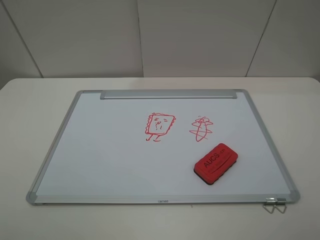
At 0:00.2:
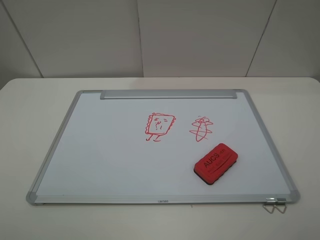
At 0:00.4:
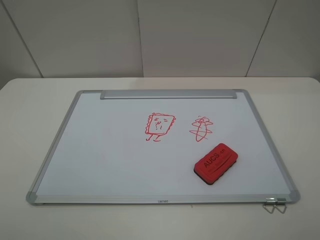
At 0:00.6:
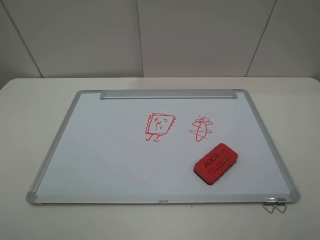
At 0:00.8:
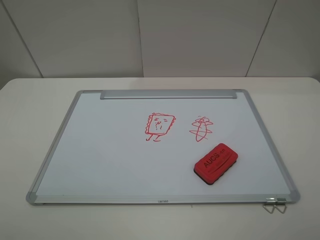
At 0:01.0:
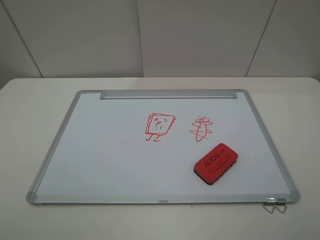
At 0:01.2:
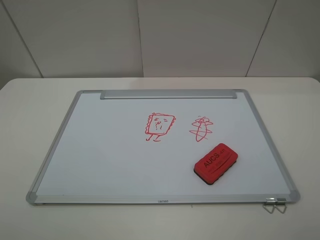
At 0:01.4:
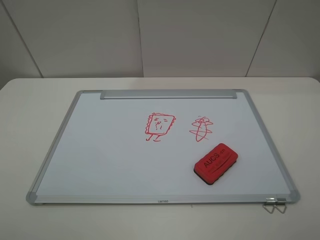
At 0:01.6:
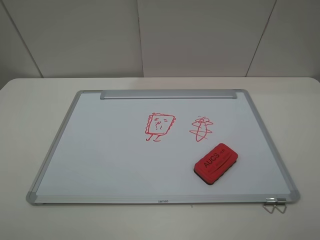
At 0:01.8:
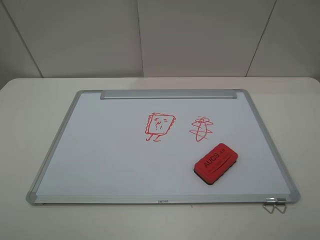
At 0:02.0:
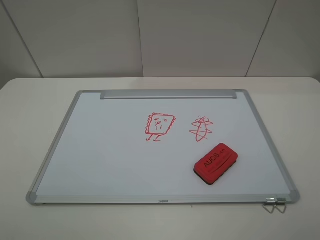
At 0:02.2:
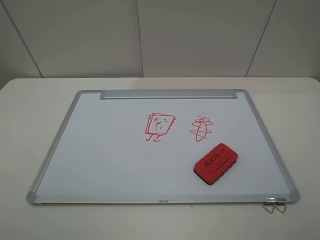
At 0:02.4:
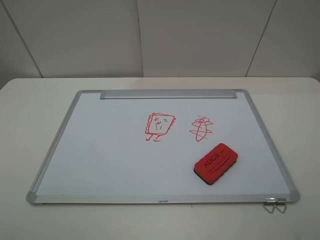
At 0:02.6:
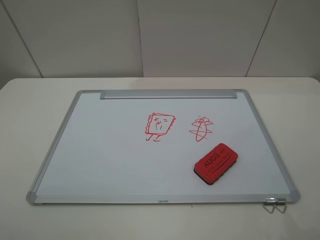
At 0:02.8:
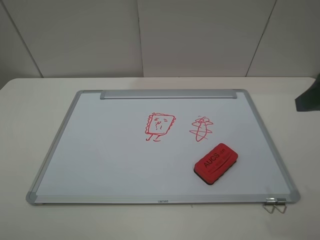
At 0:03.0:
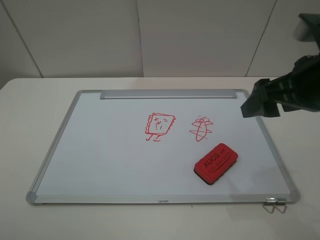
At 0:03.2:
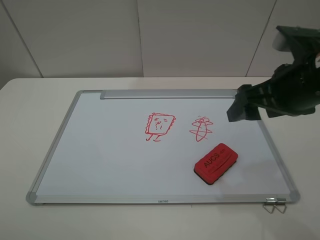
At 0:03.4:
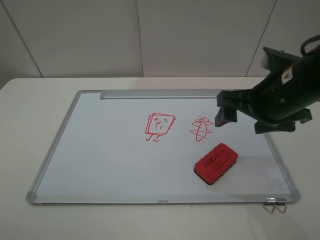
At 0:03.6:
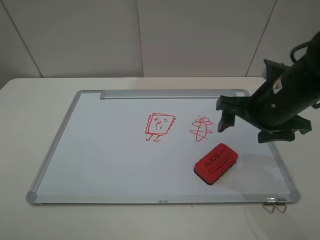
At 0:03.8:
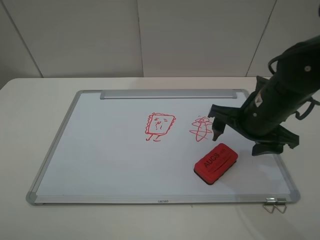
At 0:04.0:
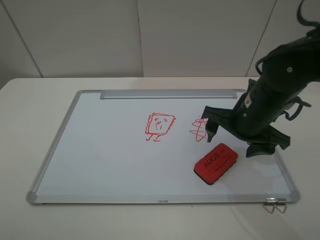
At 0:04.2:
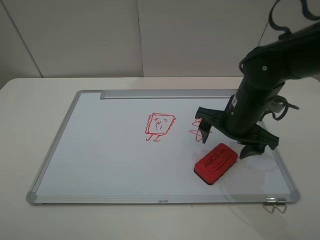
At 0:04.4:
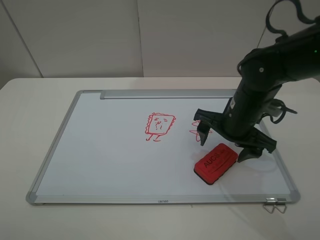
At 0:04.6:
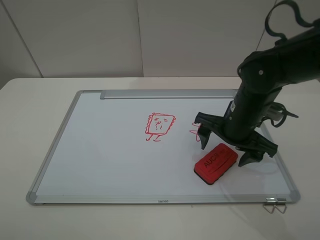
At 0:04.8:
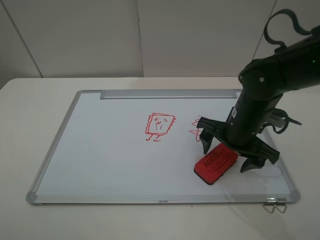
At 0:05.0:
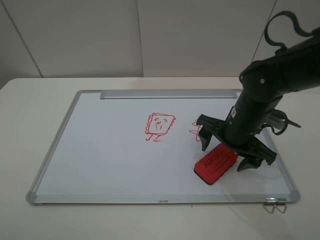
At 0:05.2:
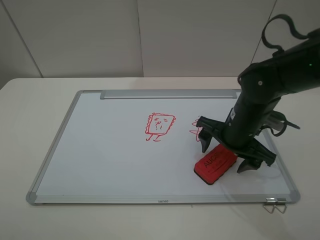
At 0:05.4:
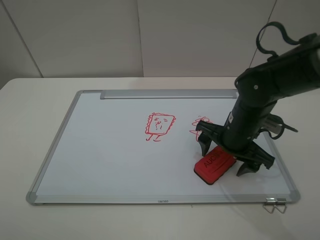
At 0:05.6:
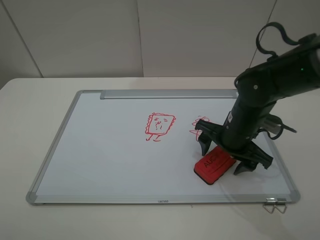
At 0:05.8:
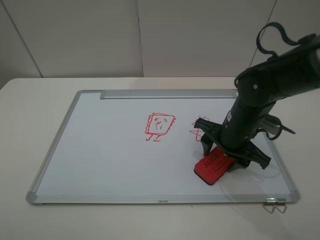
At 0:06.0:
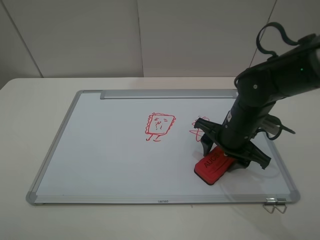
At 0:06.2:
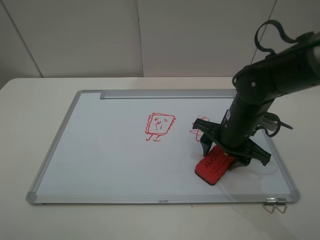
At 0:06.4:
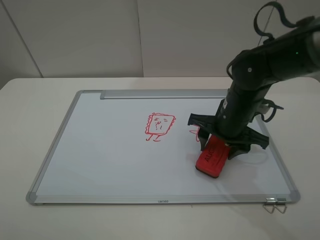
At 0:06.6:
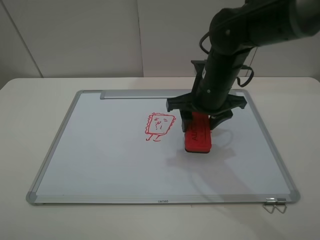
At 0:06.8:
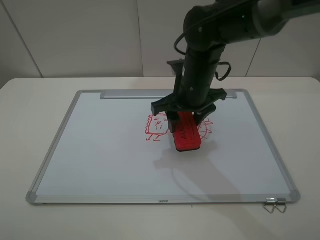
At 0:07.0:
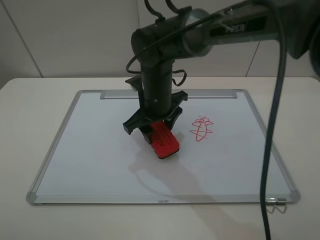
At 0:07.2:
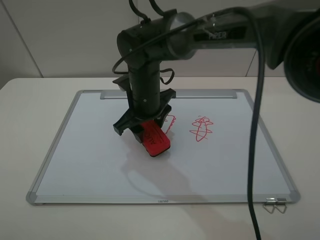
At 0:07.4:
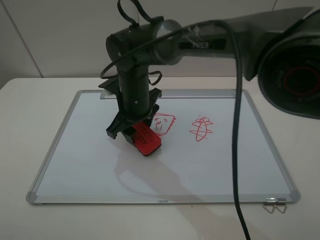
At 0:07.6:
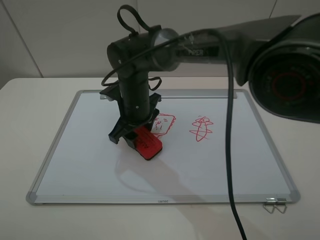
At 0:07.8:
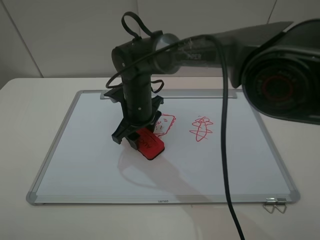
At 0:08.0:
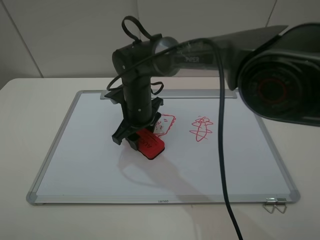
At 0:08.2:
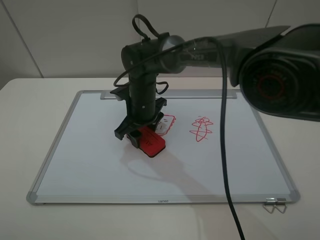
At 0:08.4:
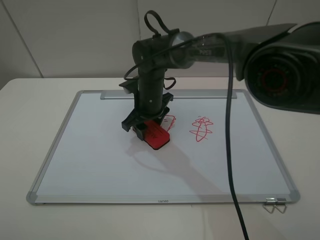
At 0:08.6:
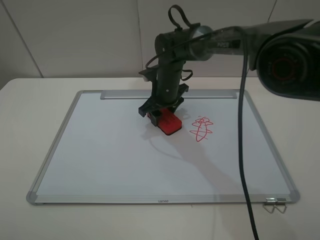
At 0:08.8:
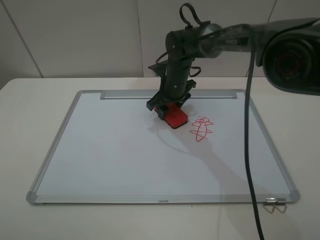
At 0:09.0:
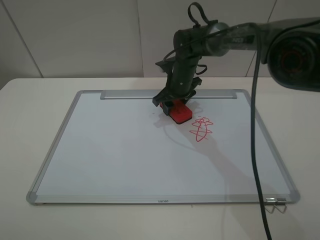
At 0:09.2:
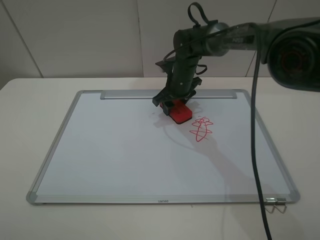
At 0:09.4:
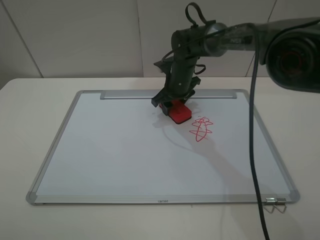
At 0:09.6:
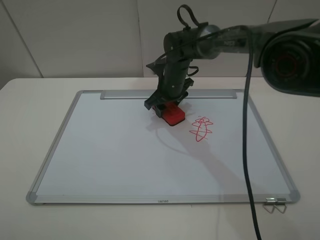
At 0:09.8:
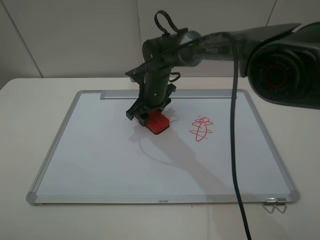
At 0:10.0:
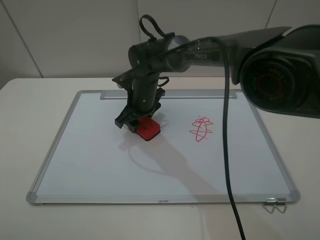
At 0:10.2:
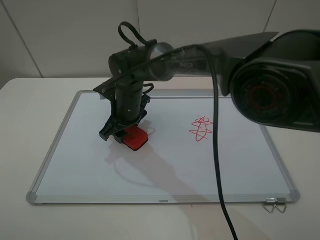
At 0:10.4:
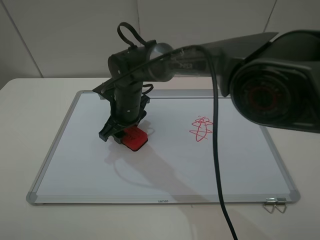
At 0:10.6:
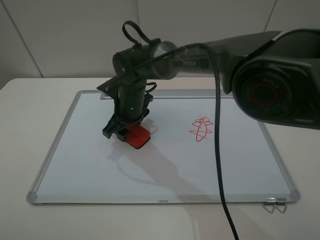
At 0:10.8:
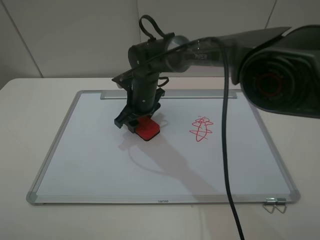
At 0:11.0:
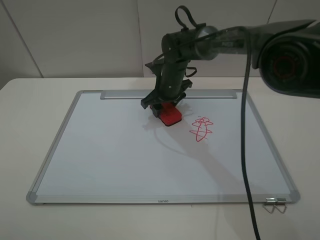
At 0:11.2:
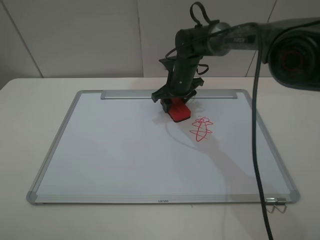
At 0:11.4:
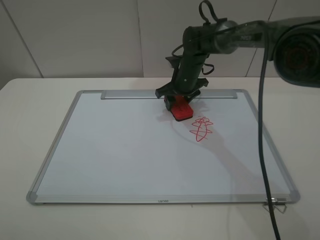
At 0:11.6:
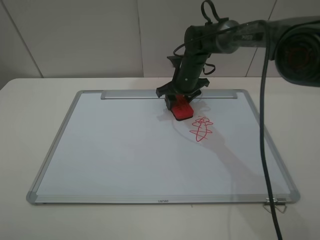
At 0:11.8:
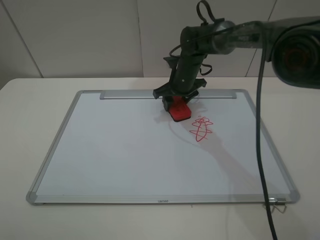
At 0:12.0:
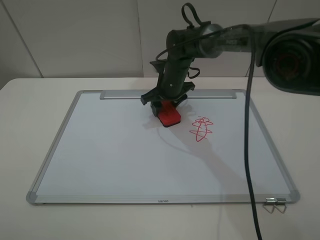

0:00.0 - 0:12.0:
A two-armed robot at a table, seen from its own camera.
Step, 0:00.0 - 0:05.8: Grasp the eraser with the right gripper.
0:00.0 - 0:01.6: Both grippers stay put.
0:01.6 - 0:03.0: The right gripper is displaced forward by about 20 cm.
0:03.0 - 0:04.4: The right gripper is displaced downward, forward and to the left by roughly 15 cm.
0:04.4 - 0:06.0: The right gripper closes.
0:06.0 - 0:07.6: The right gripper goes approximately 20 cm to the left.
0:07.6 - 0:09.0: The right gripper goes some 15 cm to the right and forward.
0:09.0 - 0:10.4: The right gripper heads to the left and backward, covering some 15 cm.
0:10.4 - 0:12.0: The right gripper is displaced to the right and forward by roughly 10 cm.

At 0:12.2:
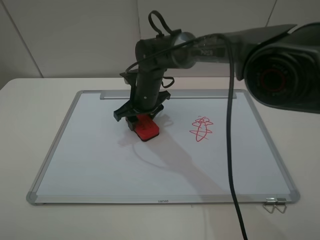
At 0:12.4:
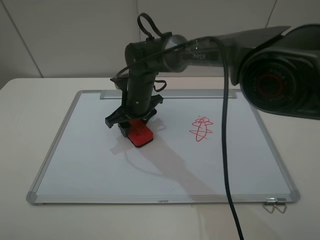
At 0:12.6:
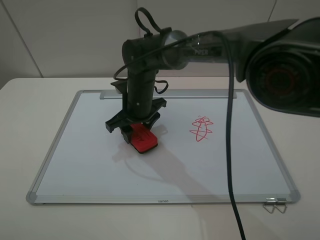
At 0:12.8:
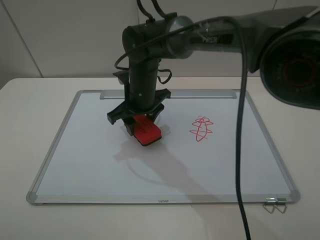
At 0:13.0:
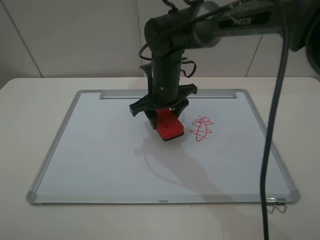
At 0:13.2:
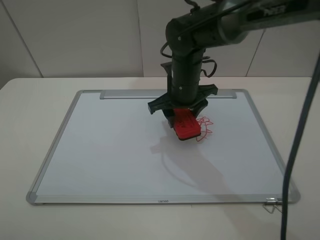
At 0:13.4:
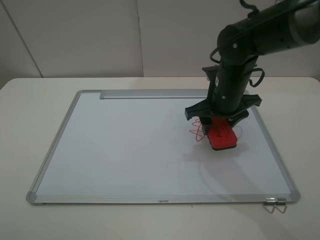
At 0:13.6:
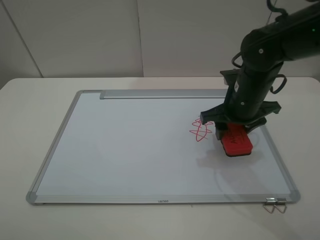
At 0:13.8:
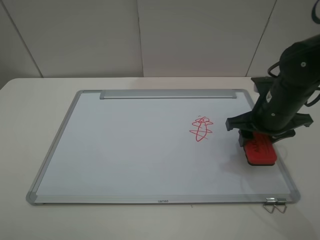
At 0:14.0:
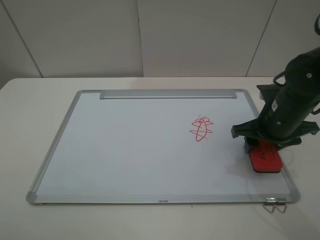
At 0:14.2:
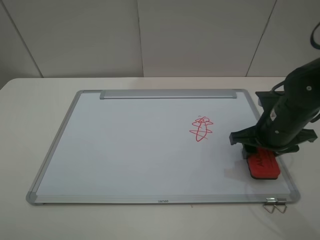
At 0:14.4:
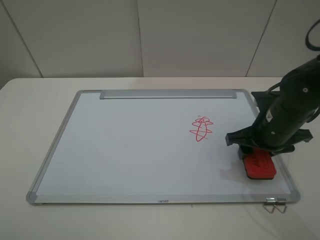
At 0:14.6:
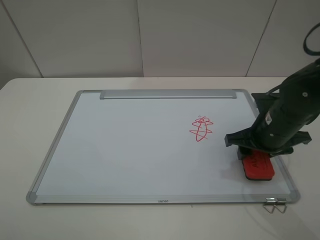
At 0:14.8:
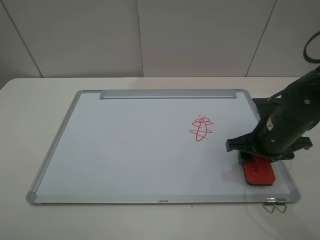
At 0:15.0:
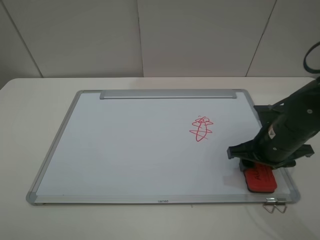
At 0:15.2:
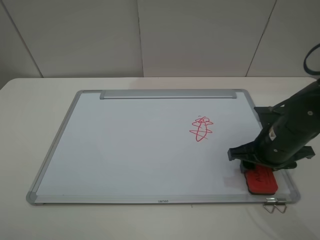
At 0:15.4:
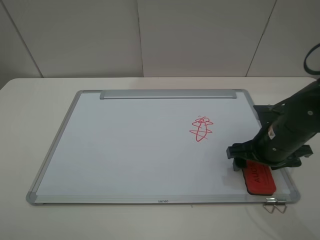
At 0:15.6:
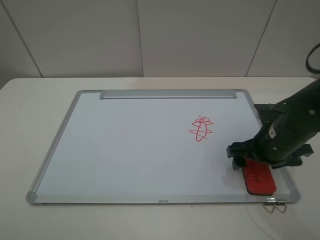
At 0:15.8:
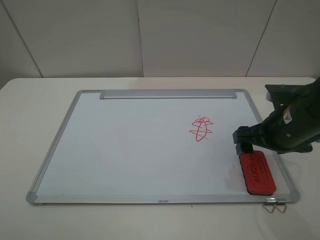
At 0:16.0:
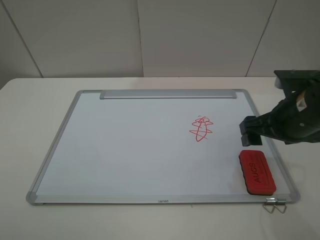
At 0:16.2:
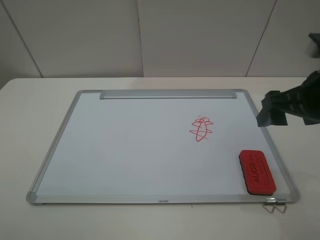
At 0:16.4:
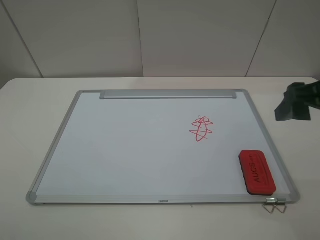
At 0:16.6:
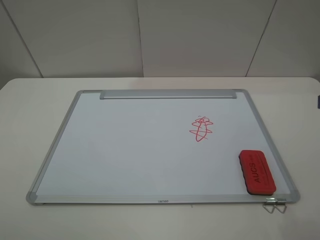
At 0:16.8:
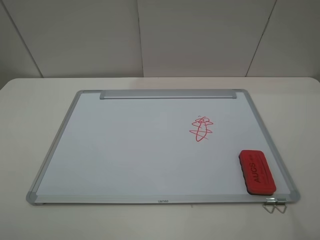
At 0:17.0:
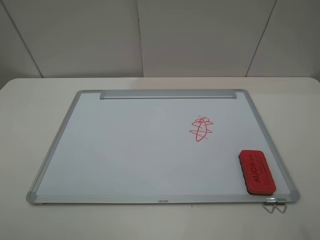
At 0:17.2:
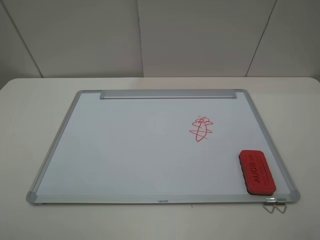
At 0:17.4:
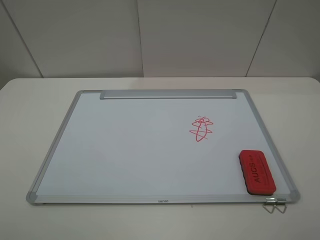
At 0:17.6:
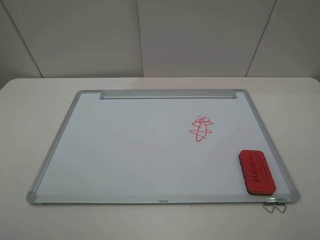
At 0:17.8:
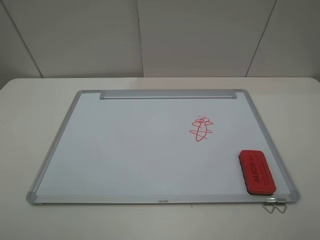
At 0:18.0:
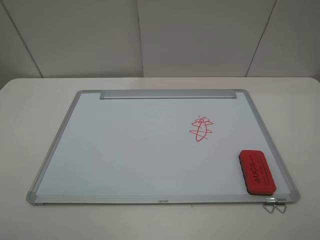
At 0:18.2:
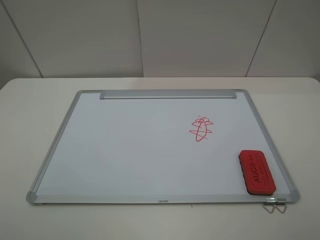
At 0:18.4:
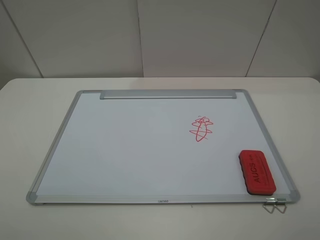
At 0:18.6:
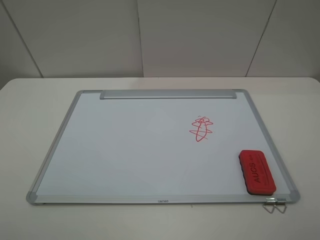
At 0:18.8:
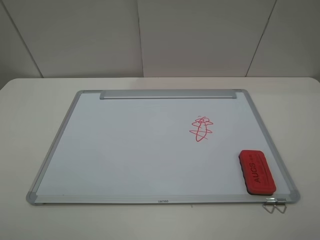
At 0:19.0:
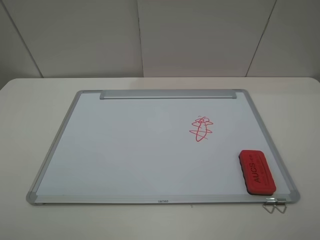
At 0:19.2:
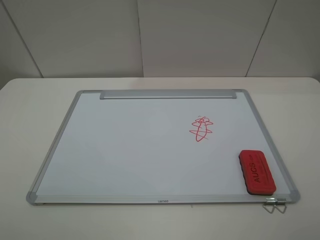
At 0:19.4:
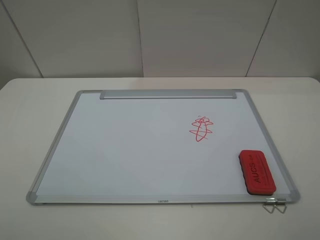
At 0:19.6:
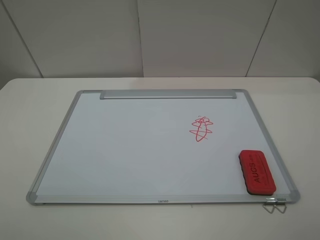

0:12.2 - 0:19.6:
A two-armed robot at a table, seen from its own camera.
Step, 0:12.8 - 0:15.6: Place the eraser with the right gripper.
0:12.2 - 0:13.6: The right gripper travels to the right and backward by about 25 cm.
0:13.6 - 0:15.2: The right gripper heads backward and downward, covering about 10 cm.
0:15.2 - 0:16.6: The right gripper moves upward and backward, some 20 cm, and opens up.
0:18.2 - 0:19.6: Both grippers stay put.
